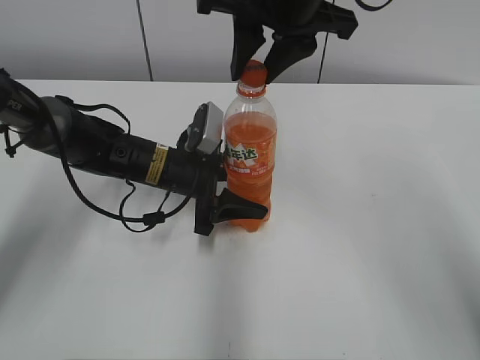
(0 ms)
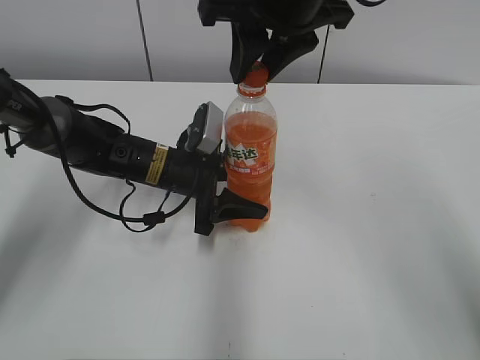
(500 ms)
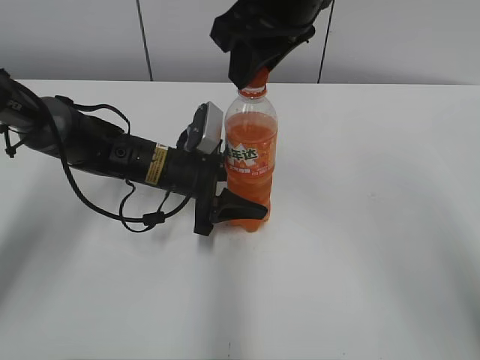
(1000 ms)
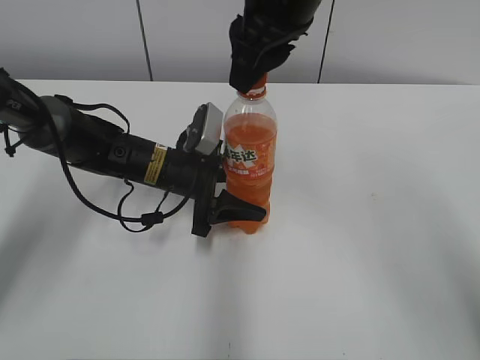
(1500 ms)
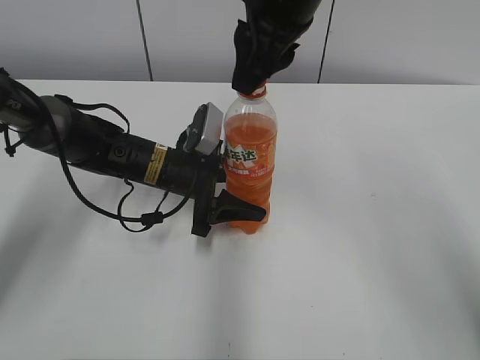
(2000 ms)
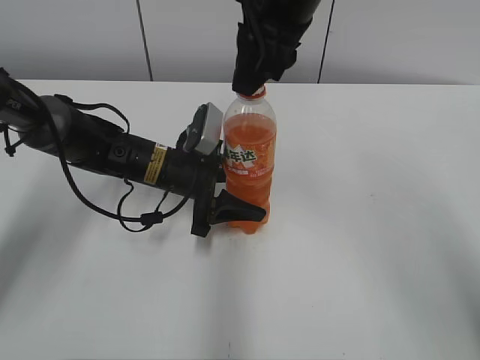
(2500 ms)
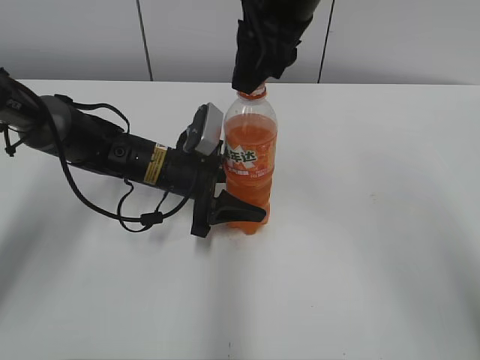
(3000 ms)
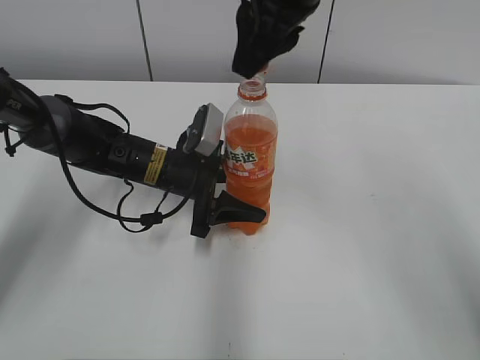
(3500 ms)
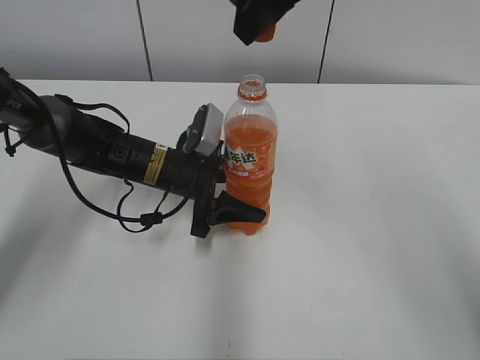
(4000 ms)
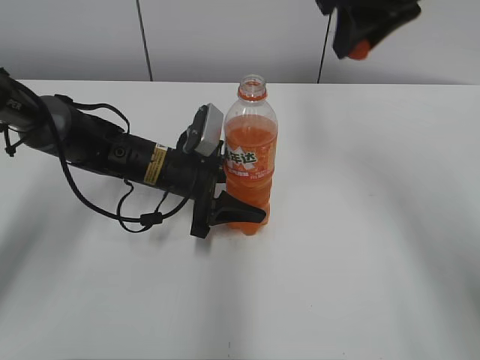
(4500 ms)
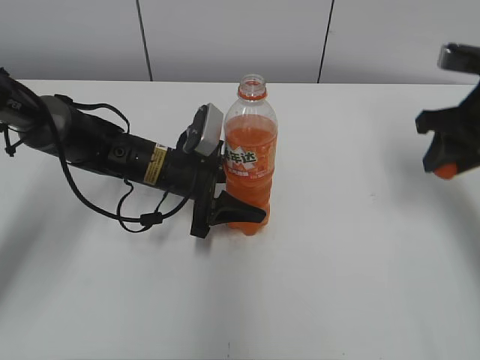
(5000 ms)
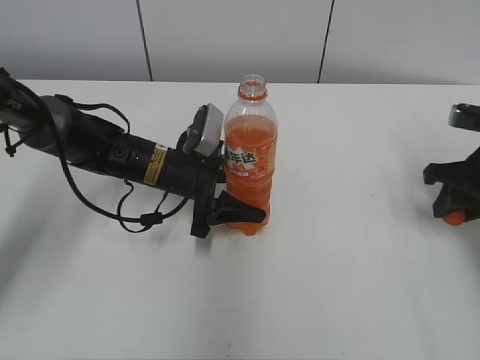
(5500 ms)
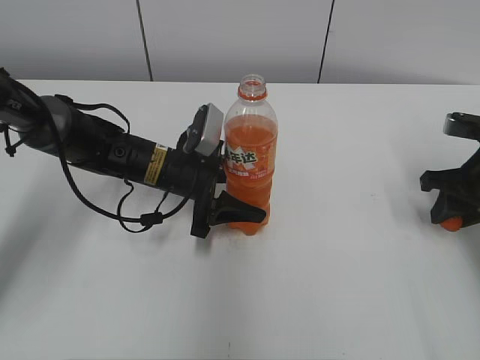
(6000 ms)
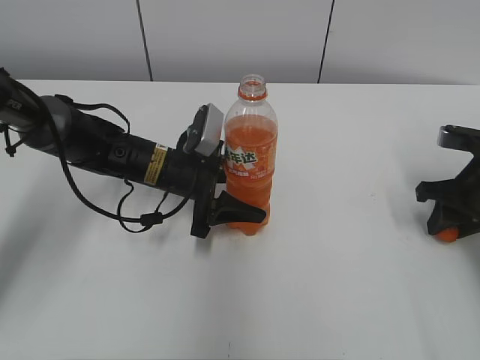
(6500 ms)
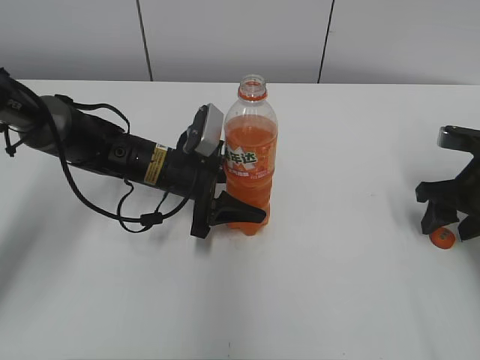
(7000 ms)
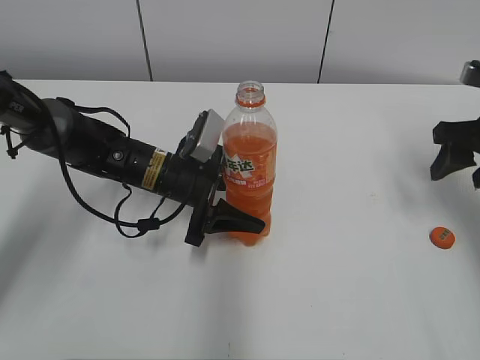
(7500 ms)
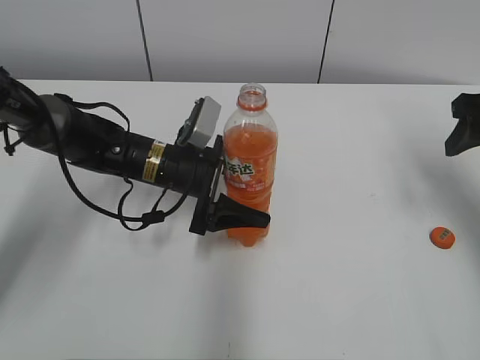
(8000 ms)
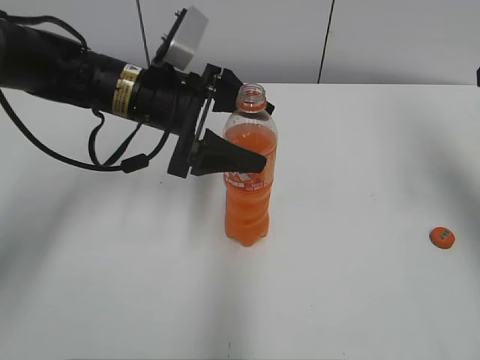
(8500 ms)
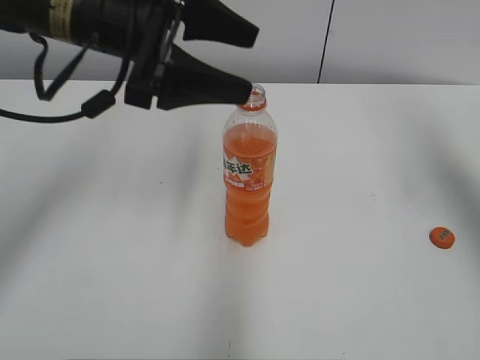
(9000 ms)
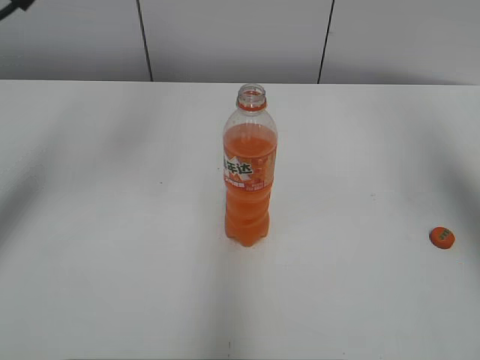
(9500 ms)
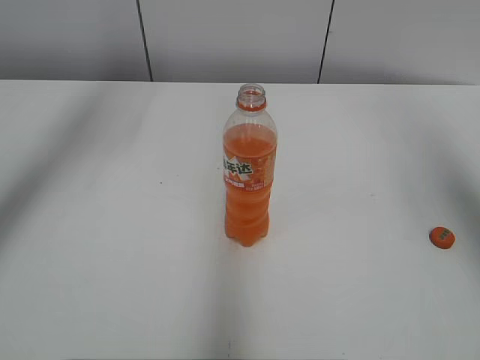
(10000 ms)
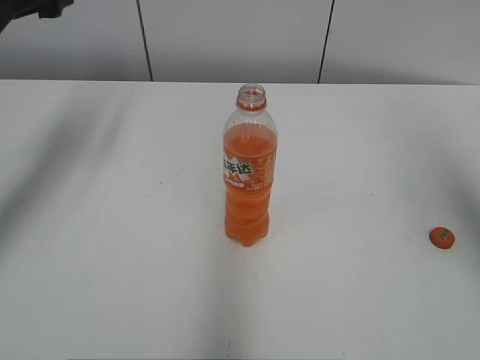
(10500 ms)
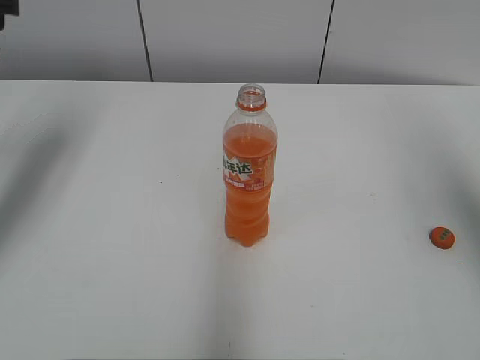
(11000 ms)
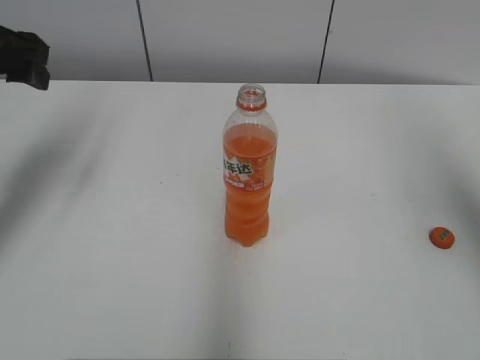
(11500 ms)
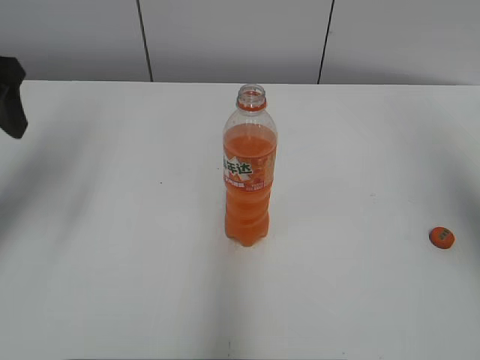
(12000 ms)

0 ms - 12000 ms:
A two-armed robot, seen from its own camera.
Step, 0 ms - 3000 ms: Fix the Mirinda on the left.
Step, 4000 ms - 7000 ms: Place the bottle cap on the right.
4000 ms - 6000 ms: The right gripper shifts roughly 35 cm to the right and downward.
6000 ms - 8000 ms: The right gripper shifts roughly 10 cm upward, and opens. The left gripper opens.
8000 ms - 10000 ms: The right gripper moves upward and backward, about 15 cm. Meanwhile the left gripper heads upward and to the left, covering roughly 30 cm.
10000 ms - 12000 ms: The left gripper moves backward and downward, some 10 cm.

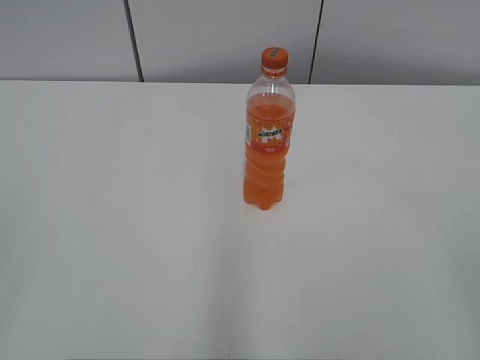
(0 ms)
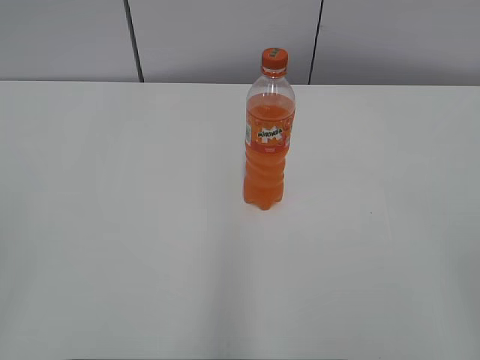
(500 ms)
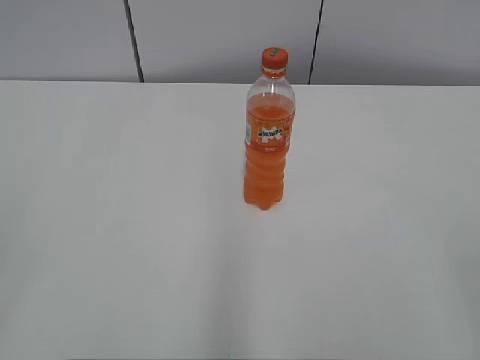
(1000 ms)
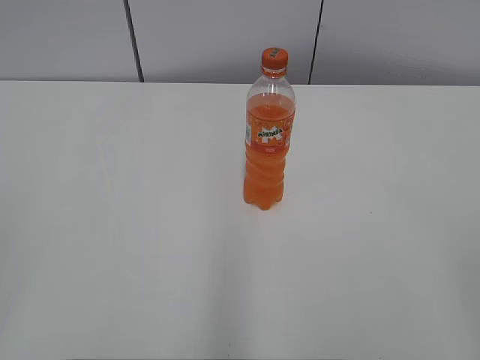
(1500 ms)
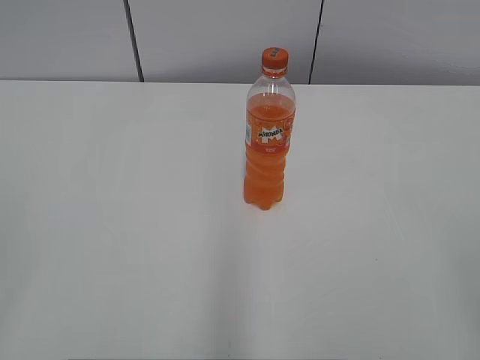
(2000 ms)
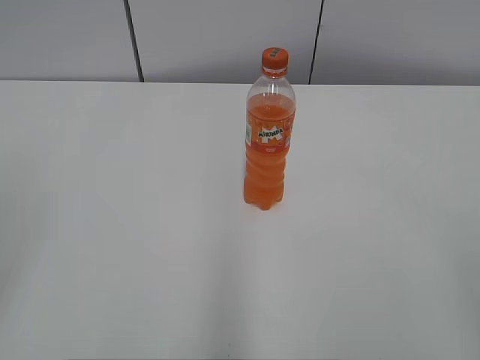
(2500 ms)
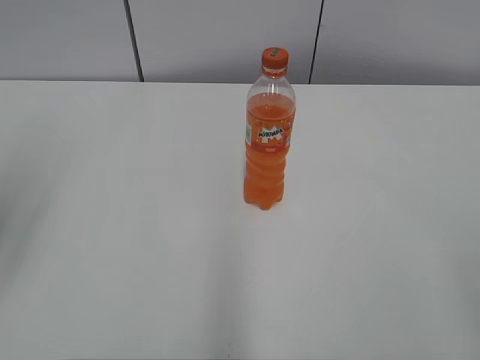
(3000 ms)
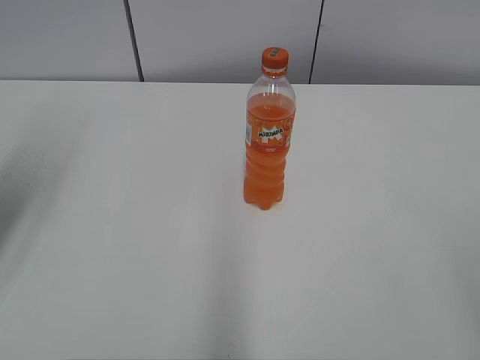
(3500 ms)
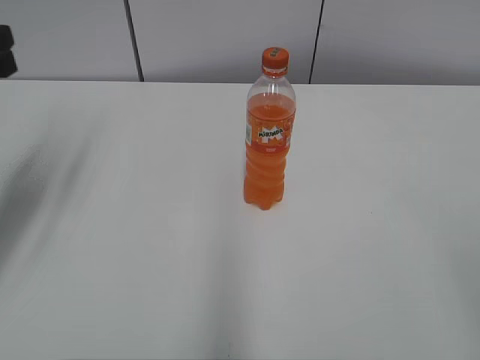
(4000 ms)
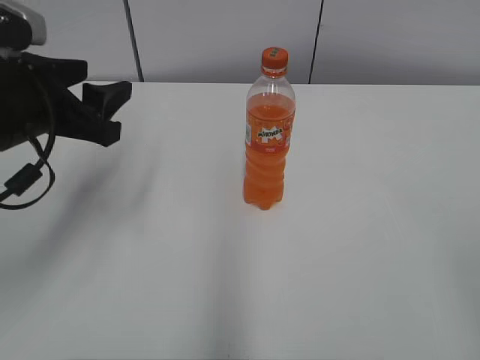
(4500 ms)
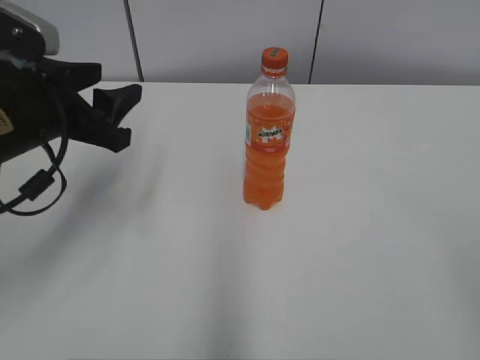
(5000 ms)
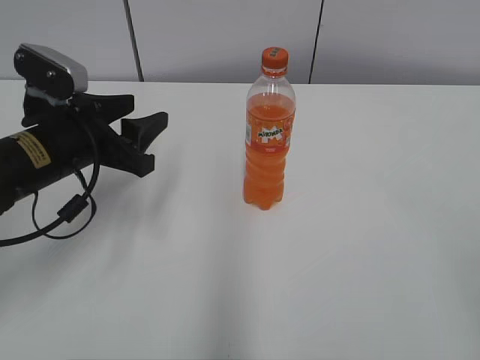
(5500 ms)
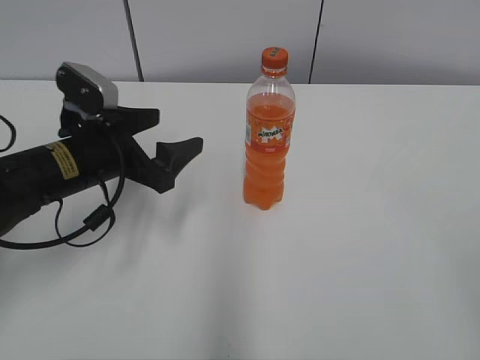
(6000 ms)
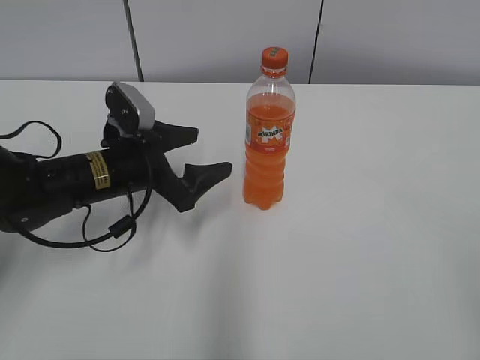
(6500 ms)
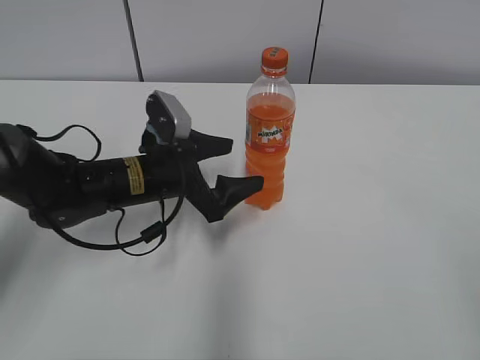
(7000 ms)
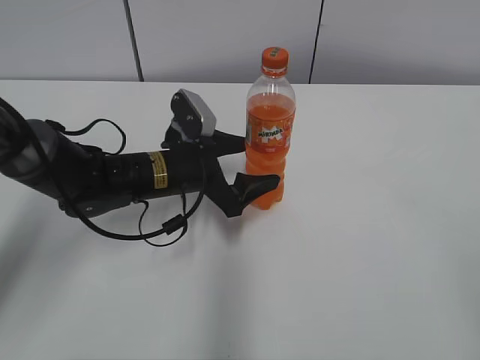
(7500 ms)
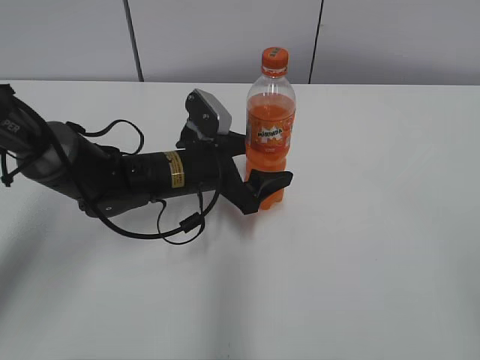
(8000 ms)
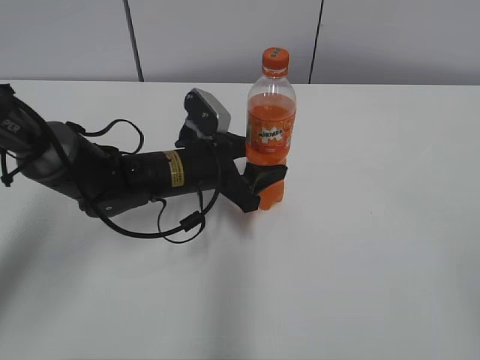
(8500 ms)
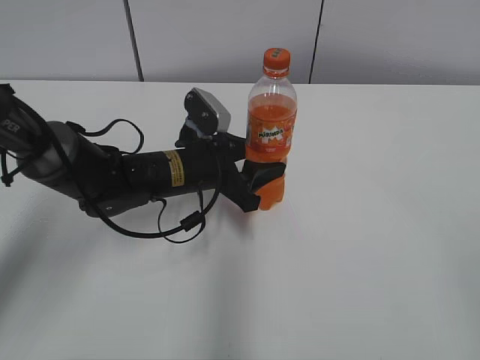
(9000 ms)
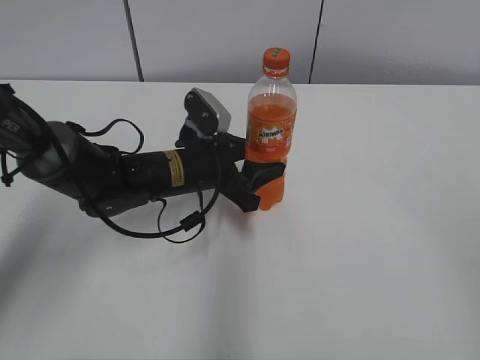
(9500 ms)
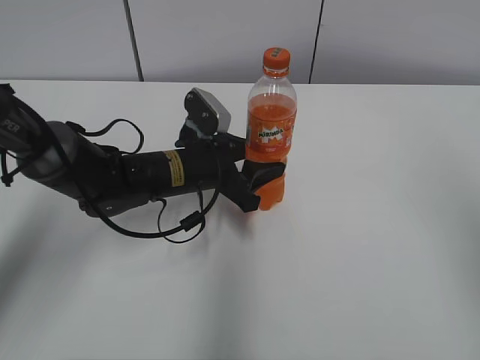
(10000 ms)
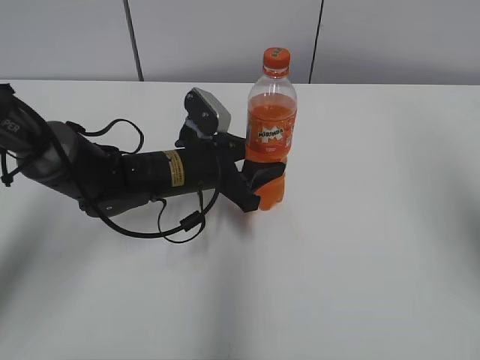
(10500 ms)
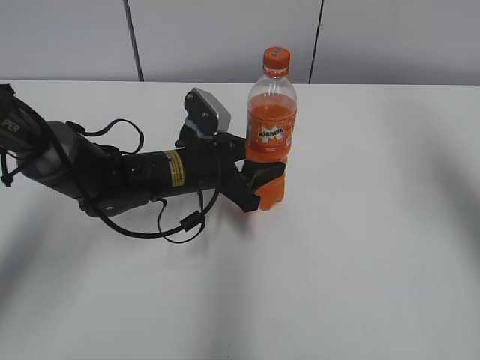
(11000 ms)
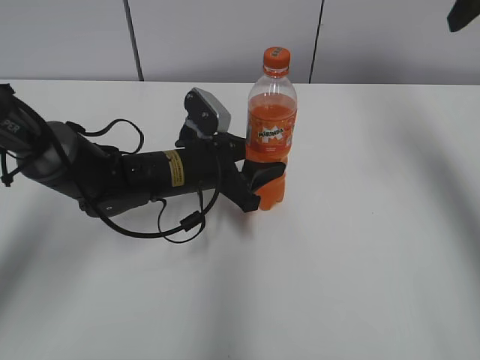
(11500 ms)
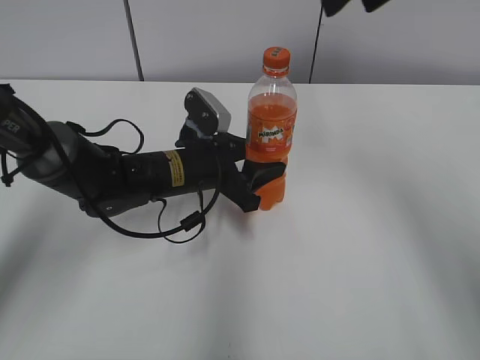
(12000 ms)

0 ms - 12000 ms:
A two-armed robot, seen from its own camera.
Step, 0 ms - 8500 ms: Grab the Mirinda with the left hand.
2000 ms - 4000 ms: The left gripper moves forward, approximately 30 cm, and opens its fingers.
4000 ms - 6000 ms: The left gripper heads to the right and downward, covering some 15 cm, and opens up.
6000 ms - 8000 ms: The left gripper goes approximately 10 cm to the right and downward.
8000 ms - 10000 ms: The left gripper closes its fingers. The right gripper is displaced forward and upward by about 15 cm.
10000 ms - 12000 ms: The right gripper travels forward and to the left by about 30 cm.

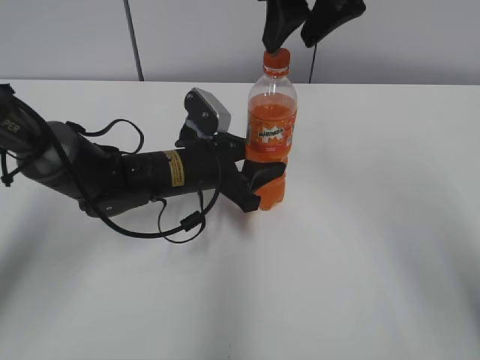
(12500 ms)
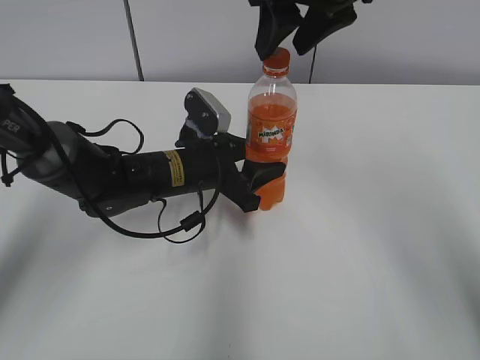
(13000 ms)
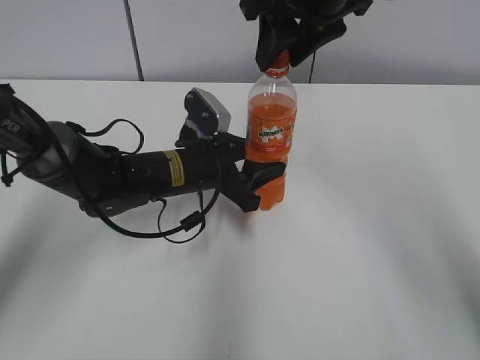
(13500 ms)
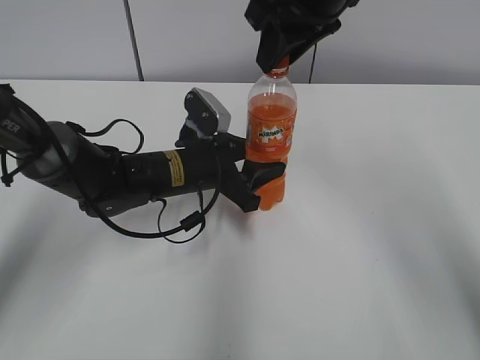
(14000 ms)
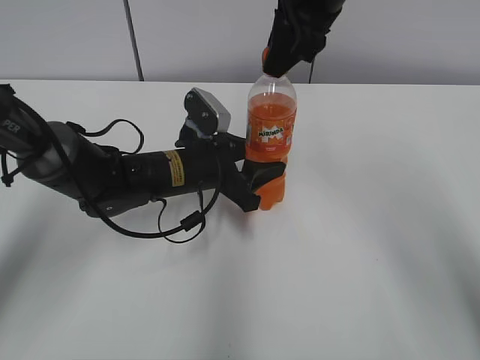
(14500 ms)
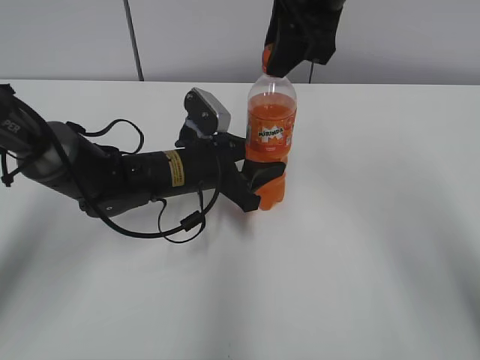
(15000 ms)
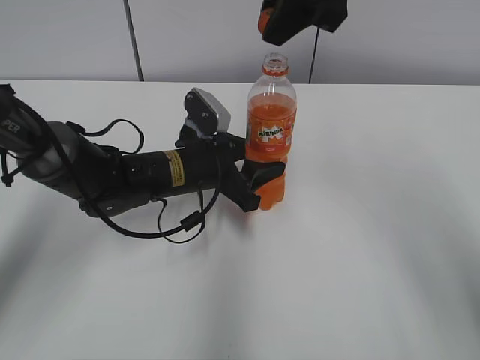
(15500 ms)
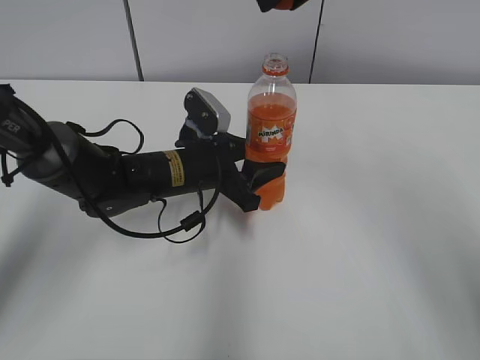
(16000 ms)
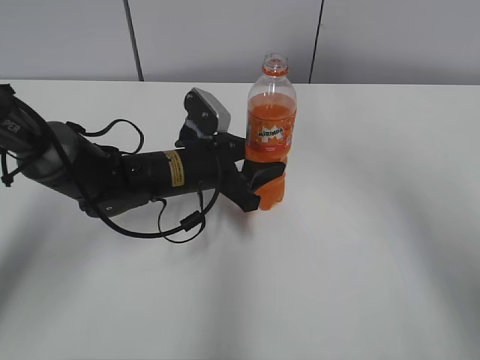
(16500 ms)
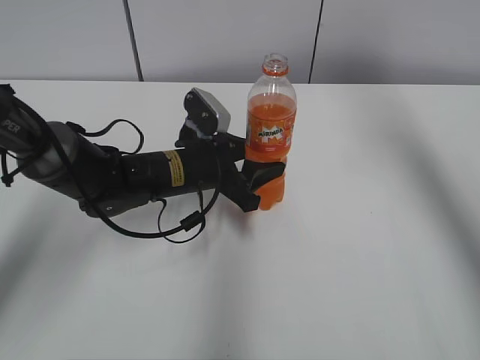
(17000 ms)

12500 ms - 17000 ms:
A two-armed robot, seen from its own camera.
Step, 12500 ms - 15000 ms: Twist the bottle cap with the right hand.
12500 ms - 14500 ms: The right gripper closes up.
14500 ms - 17000 ms: The right gripper is displaced to the right and upward by approximately 15 cm.
